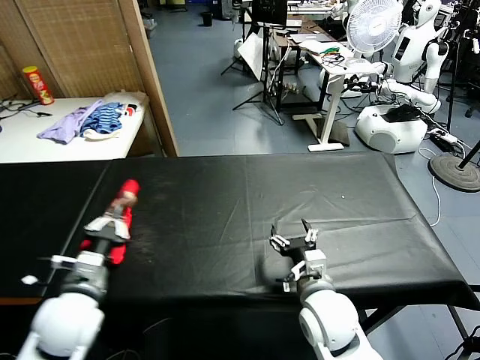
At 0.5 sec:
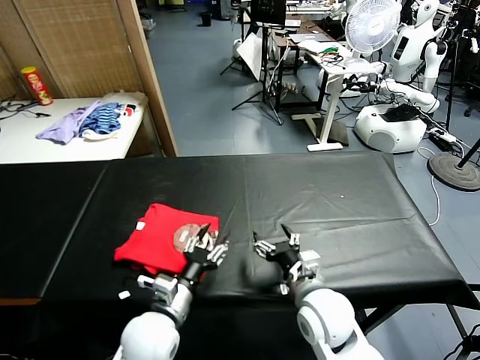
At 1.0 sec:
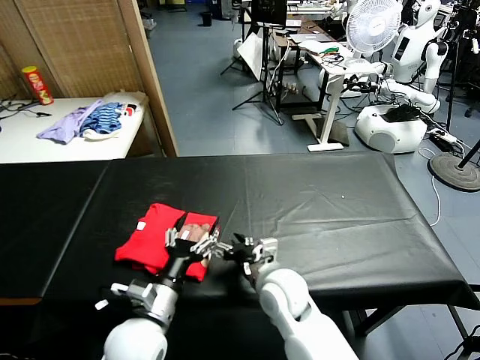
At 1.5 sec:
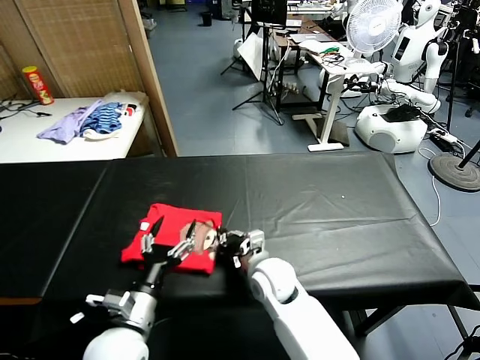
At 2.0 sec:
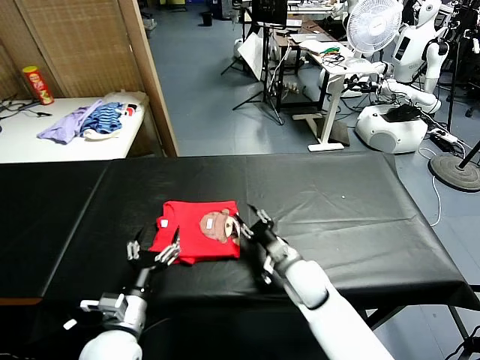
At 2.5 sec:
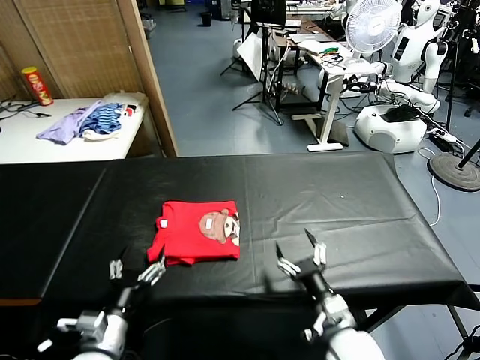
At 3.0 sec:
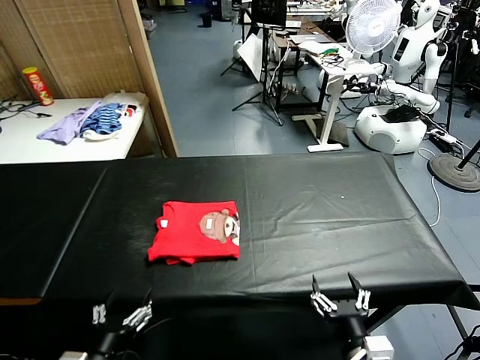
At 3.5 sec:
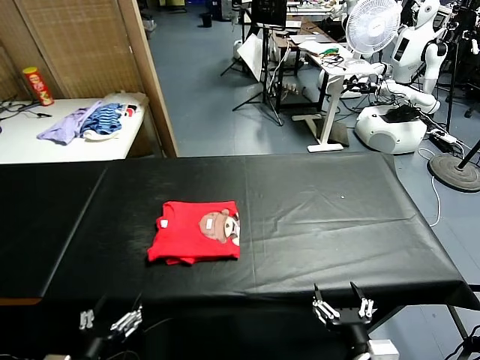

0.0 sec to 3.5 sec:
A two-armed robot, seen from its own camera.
Task of the whole recording: fold and organize the clothes.
Step, 1.0 sec to 1.5 sec: Drag the clothes to the center of the table.
0.0 sec to 2.0 sec: The left gripper shifts some 10 cm to the right and downward, and opens up; the right gripper moves forward and downward, approximately 10 cm, and closes.
2.0 sec to 3.5 sec: The right gripper moves backward, some 25 cm, and opens its fingers; the left gripper goes roughly 10 cm backward.

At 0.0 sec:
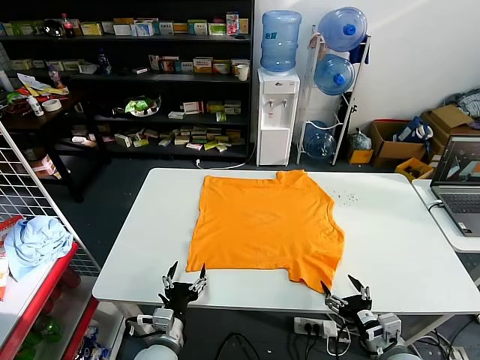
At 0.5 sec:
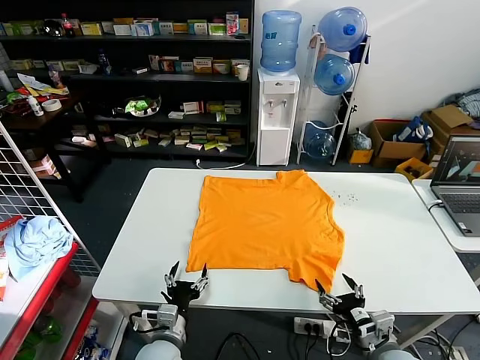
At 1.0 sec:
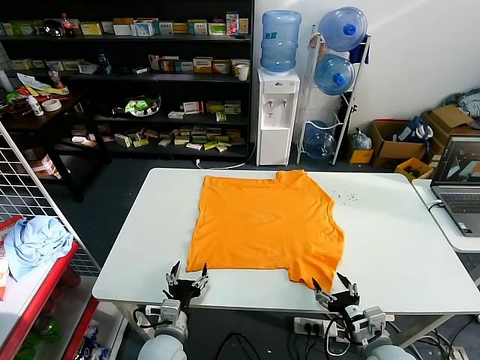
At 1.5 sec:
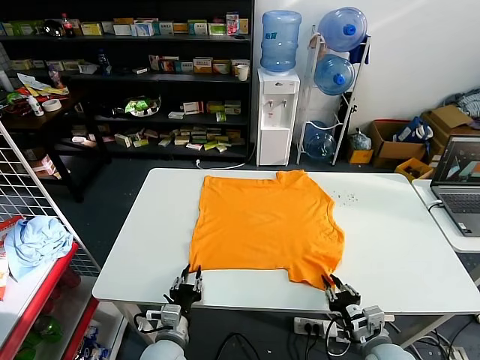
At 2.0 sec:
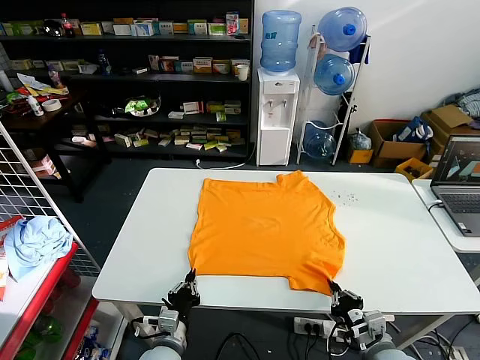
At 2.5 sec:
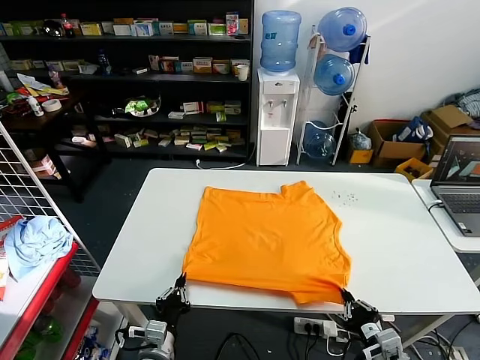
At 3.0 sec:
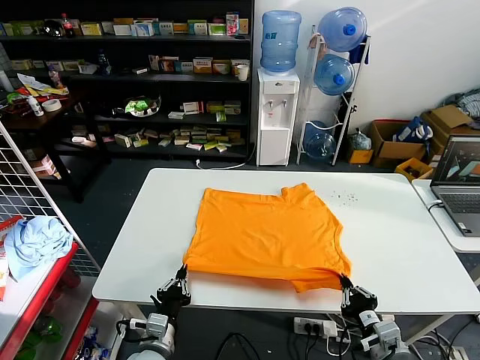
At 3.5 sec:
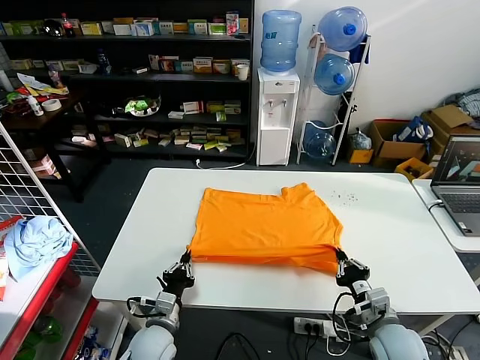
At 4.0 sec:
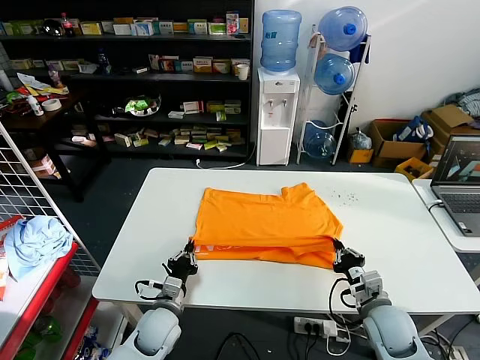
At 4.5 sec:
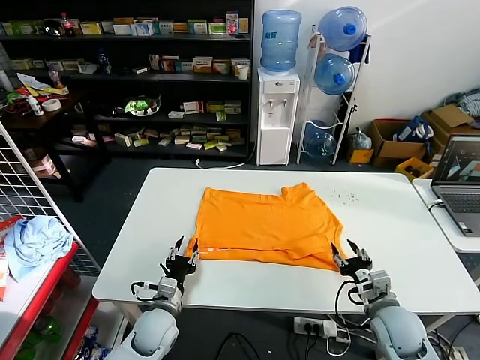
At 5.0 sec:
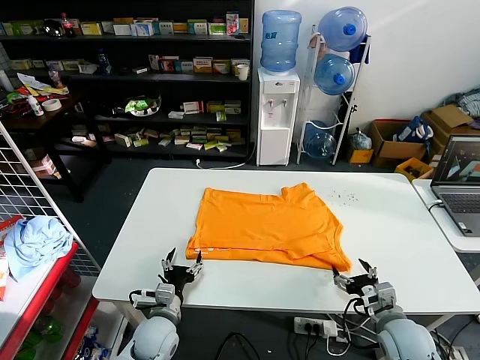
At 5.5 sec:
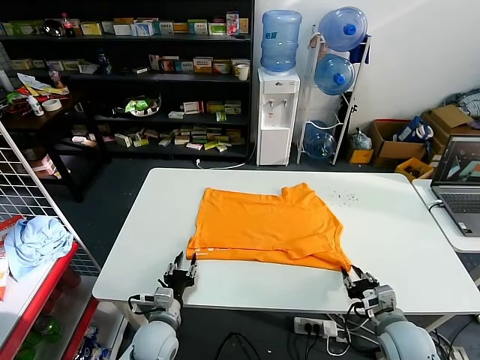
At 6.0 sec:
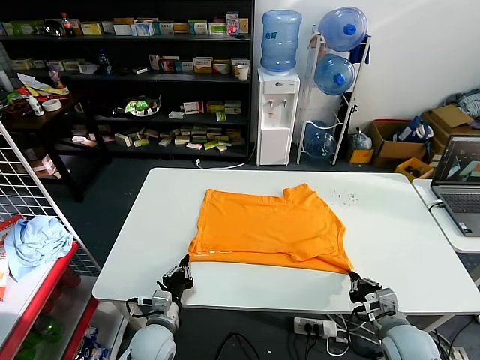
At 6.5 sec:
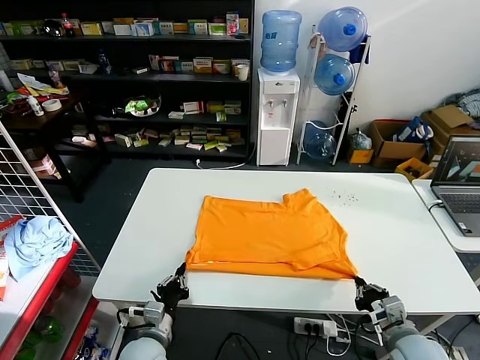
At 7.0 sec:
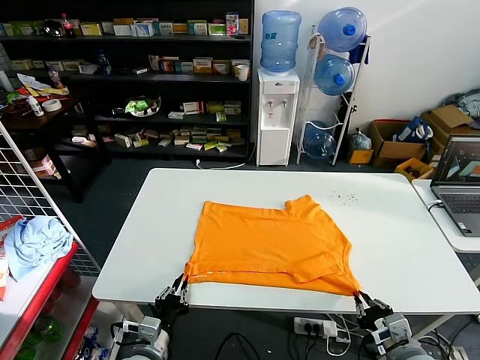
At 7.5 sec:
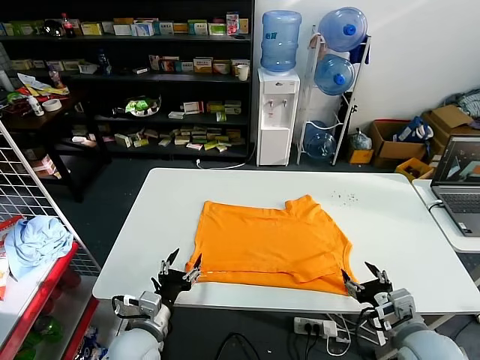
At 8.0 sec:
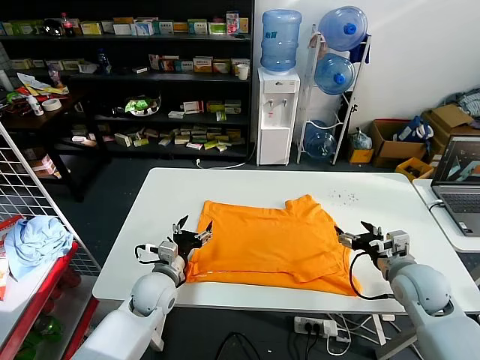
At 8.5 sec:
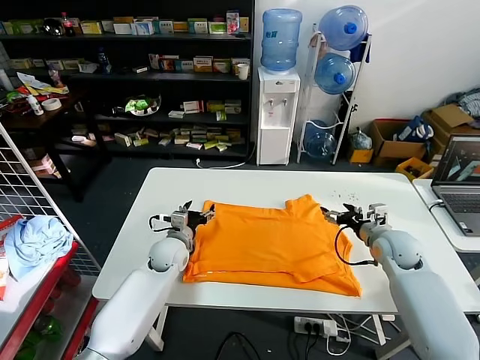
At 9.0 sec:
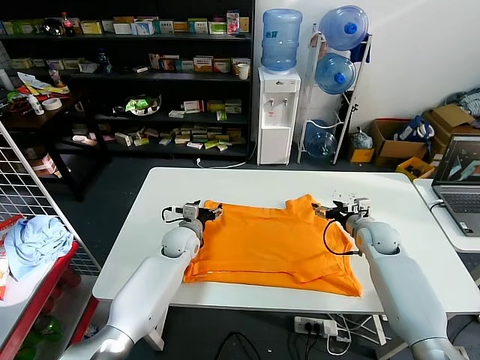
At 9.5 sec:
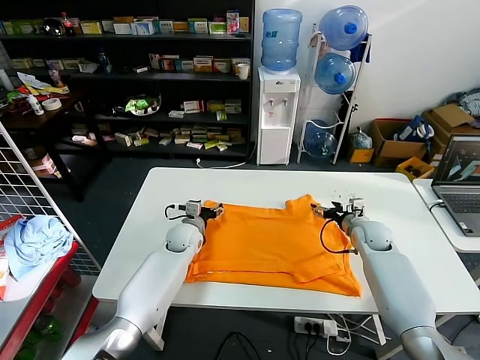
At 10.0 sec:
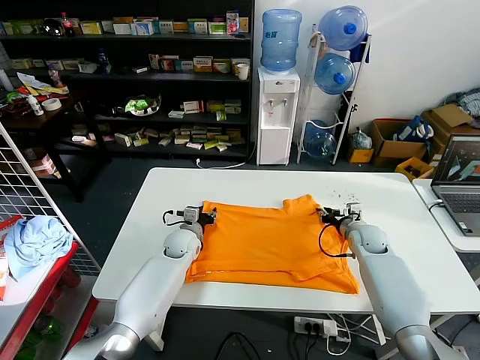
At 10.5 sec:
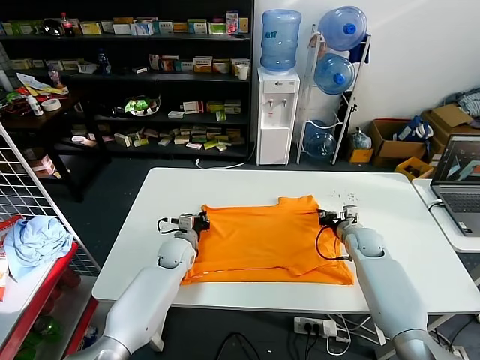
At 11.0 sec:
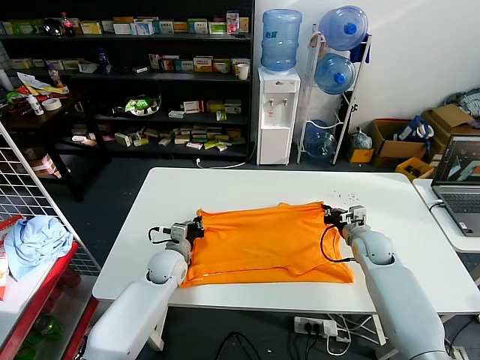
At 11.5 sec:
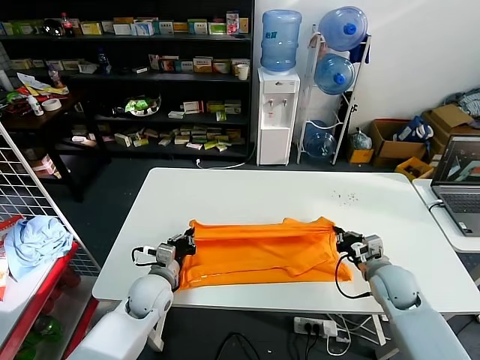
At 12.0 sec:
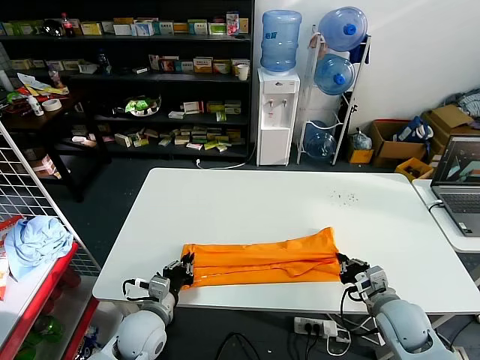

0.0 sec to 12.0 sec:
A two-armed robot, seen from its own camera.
Task of the whole recording: fold and organize the clothes.
Step, 0.0 sec to 1.5 sec: use both grippers simultaneously to clamp the lower edge of the clothing fabric.
Step, 2.0 sec to 4.5 sec: use both grippers to drag the lower edge of the fabric forward and fold it over the upper edge.
Step, 5.0 sec to 7.0 sec: Drag the clothes downward with both gripper.
Step, 8.0 sec to 10.0 sec: use both grippers simultaneously to clamp the upper edge of the clothing fabric.
2.0 sec to 4.0 sec: The grippers both shift forward by approximately 10 cm.
4.0 sec to 6.0 sec: The right gripper moves some 5 cm, and opens, then closes once more. Meanwhile the left gripper opens, then closes again.
6.0 sec to 8.0 sec: Both grippers move forward and upward, approximately 15 cm. The left gripper opens up; the right gripper opens.
8.0 sec to 10.0 sec: The right gripper shifts some 20 cm forward and downward, and closes its fingers, while the left gripper heads forward, covering roughly 15 cm, and closes up.
10.0 sec to 12.0 sec: The two grippers go some 20 cm backward. The left gripper closes its fingers.

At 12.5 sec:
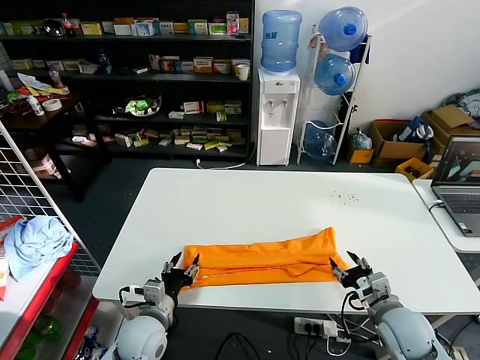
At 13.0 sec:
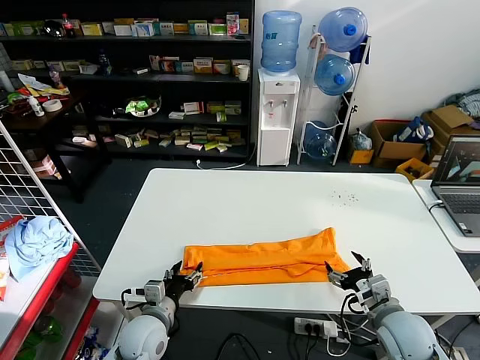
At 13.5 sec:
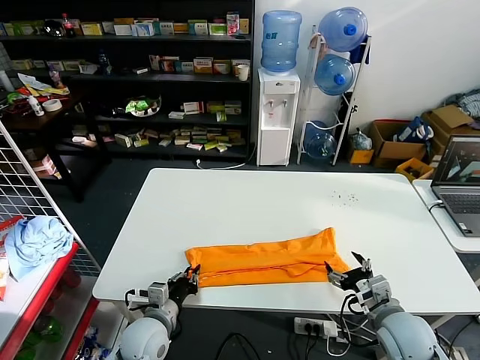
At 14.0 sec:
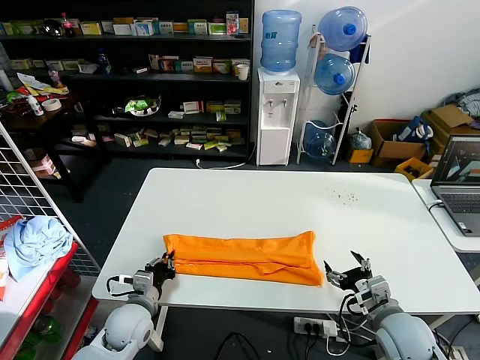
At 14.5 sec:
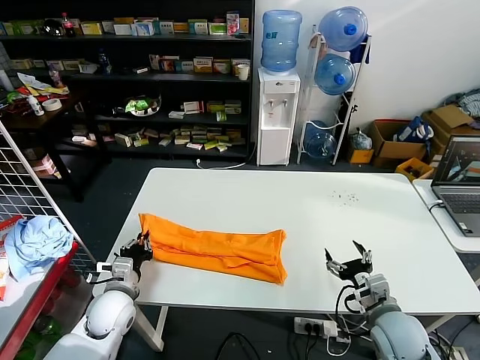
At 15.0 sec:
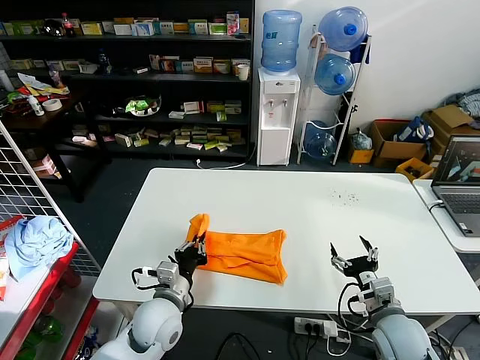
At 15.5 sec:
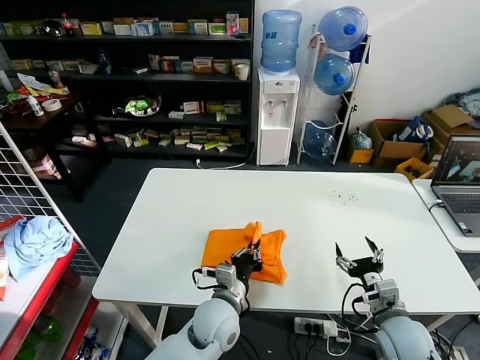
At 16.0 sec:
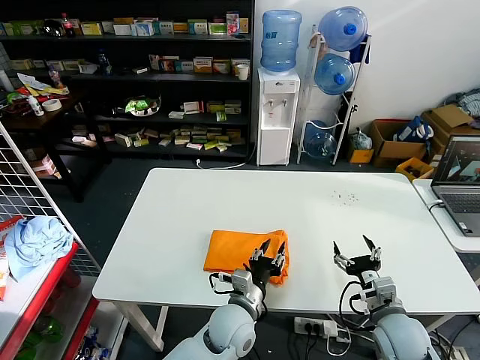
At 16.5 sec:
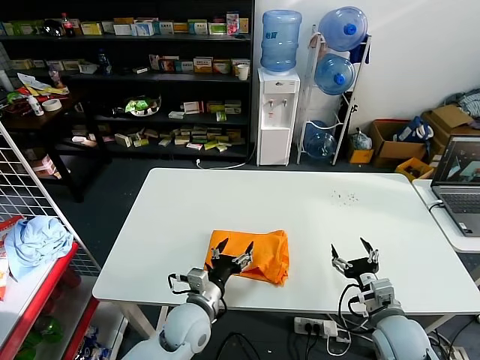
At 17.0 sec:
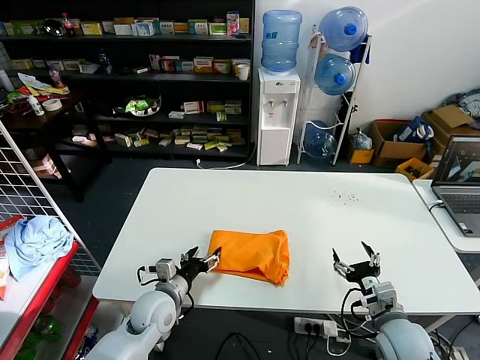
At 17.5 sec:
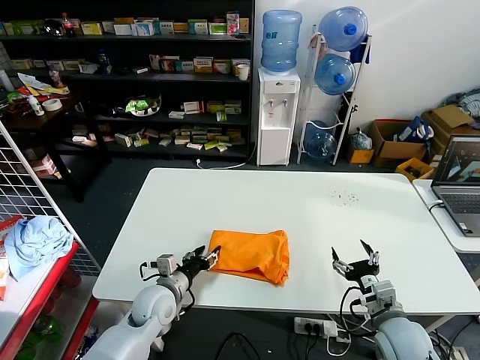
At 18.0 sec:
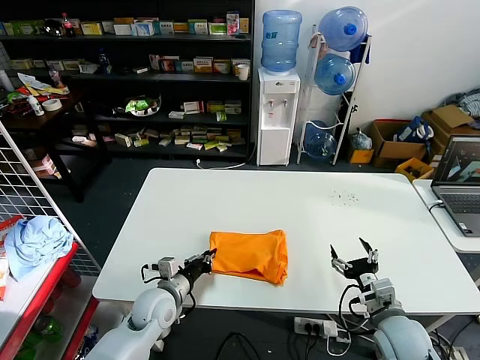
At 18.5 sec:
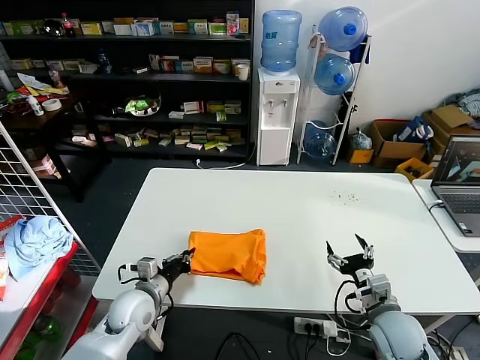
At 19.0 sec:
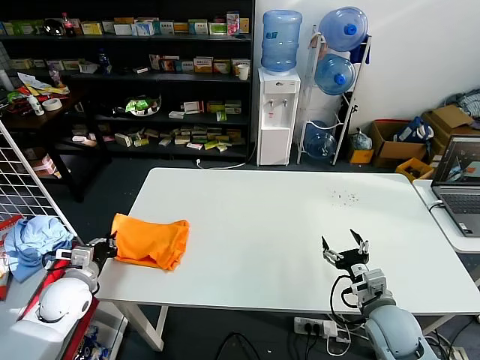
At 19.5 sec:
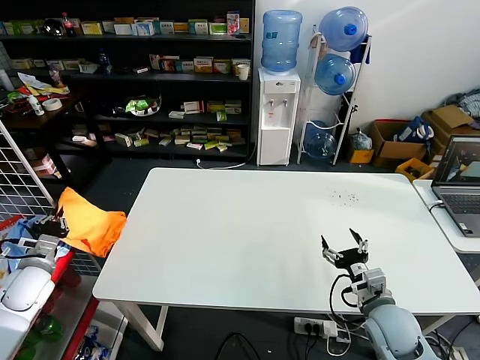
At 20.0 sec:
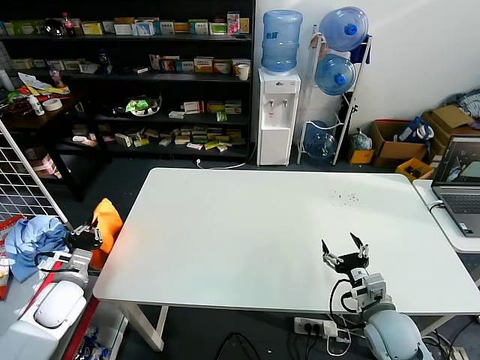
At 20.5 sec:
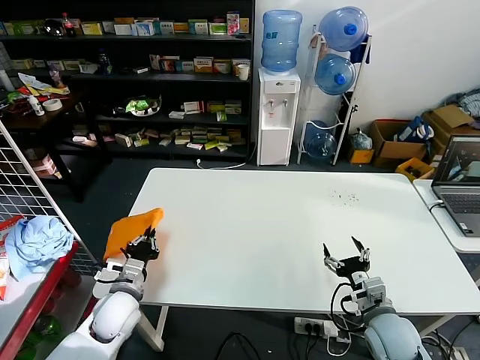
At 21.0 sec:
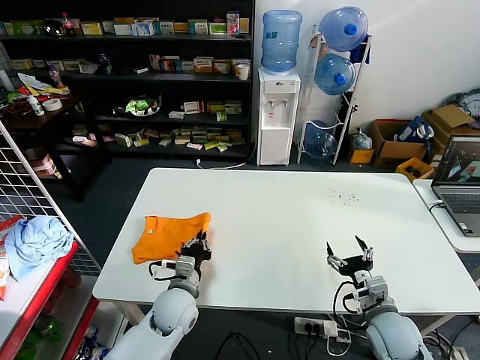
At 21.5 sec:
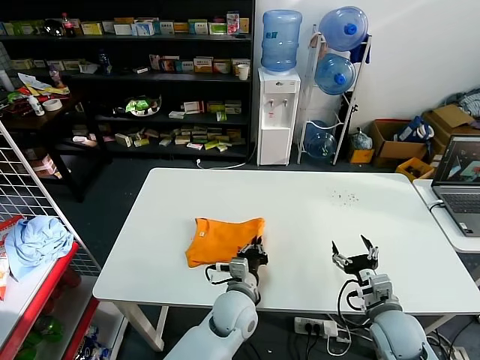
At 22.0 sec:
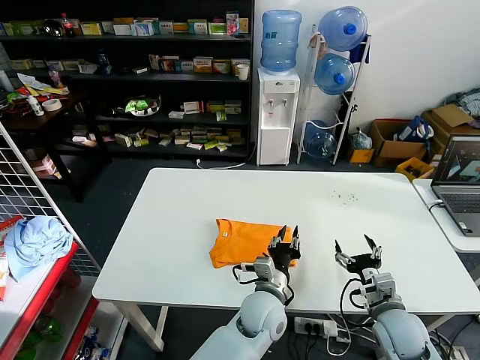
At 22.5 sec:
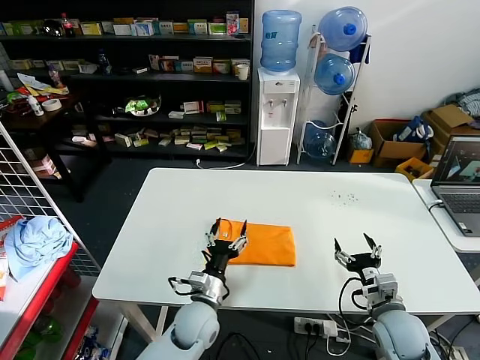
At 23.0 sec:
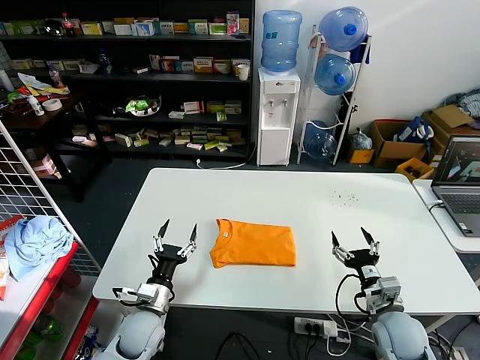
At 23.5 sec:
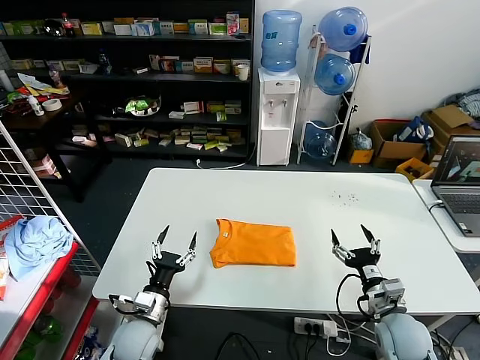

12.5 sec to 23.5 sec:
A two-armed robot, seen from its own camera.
Task of the whole recording: fold and organize the clothes.
Step, 13.0 sec to 13.5 sec: use the left gripper to clamp the left edge of the fabric.
Step, 14.0 sec to 16.0 sec: use the left gripper to drag the left edge of the fabric to the left and folds it over the right edge.
Step, 16.5 sec to 22.0 sec: Flip the folded clothes over with left gripper.
12.5 sec to 14.5 sec: The left gripper travels to the left by roughly 10 cm, and closes its fingers.
14.5 sec to 16.0 sec: The left gripper heads to the right, covering about 30 cm, and opens.
16.0 sec to 18.0 sec: The left gripper is displaced to the left by roughly 20 cm, and closes.
18.0 sec to 20.0 sec: The left gripper is displaced to the left by roughly 20 cm.
20.0 sec to 21.5 sec: The left gripper moves to the right, roughly 40 cm.
21.5 sec to 23.5 sec: The left gripper is displaced to the left by approximately 20 cm, and opens its fingers.
